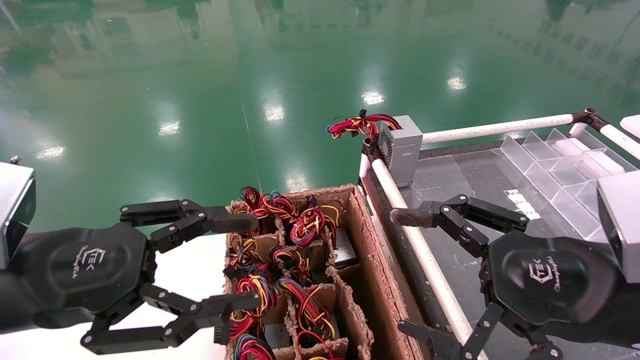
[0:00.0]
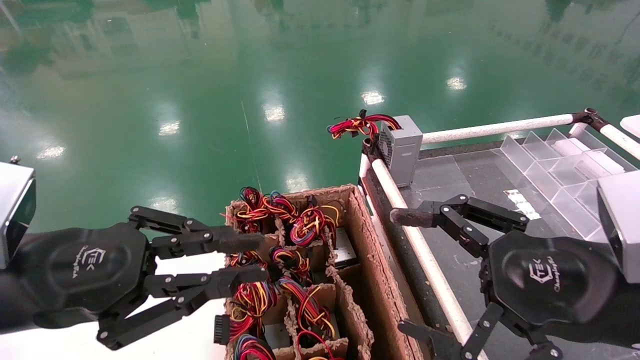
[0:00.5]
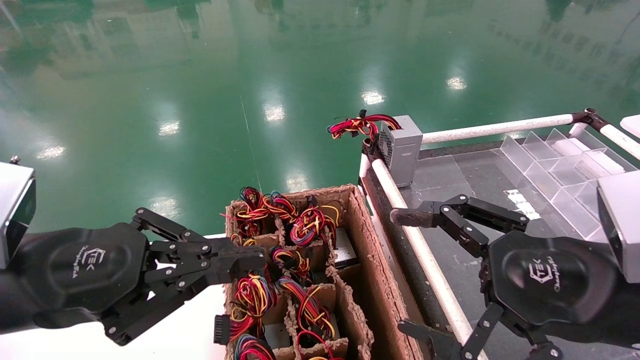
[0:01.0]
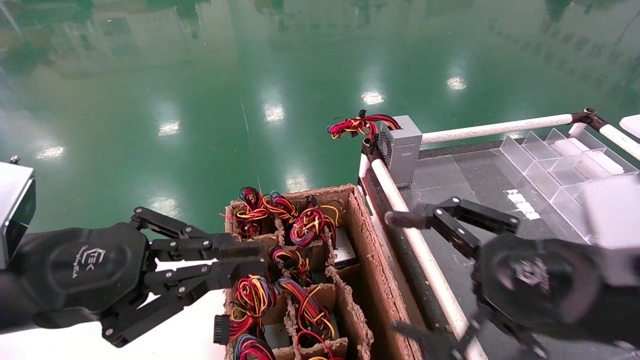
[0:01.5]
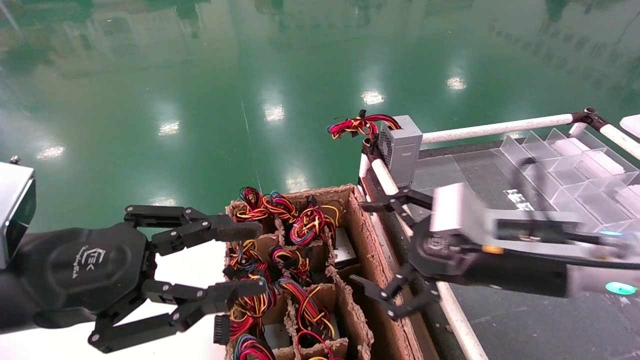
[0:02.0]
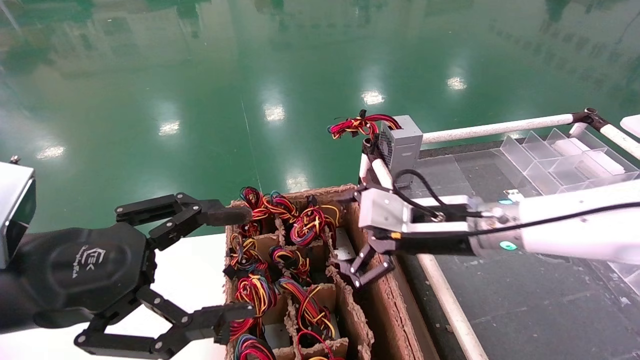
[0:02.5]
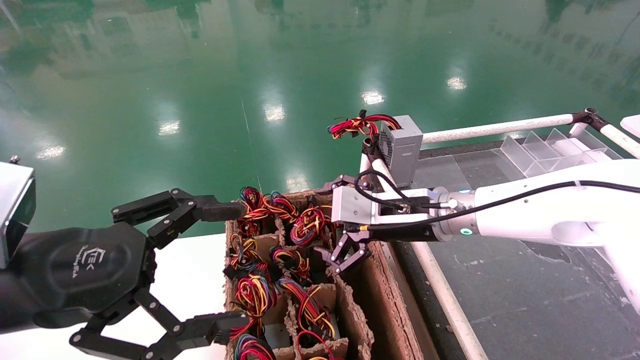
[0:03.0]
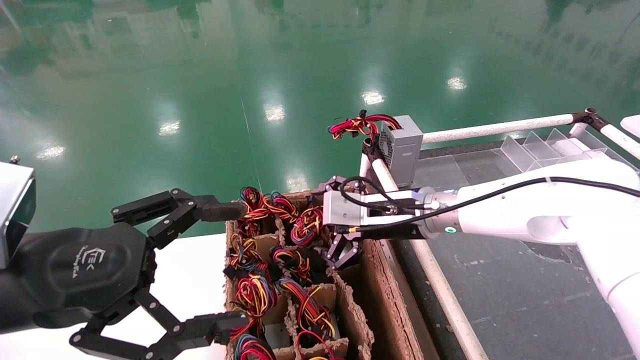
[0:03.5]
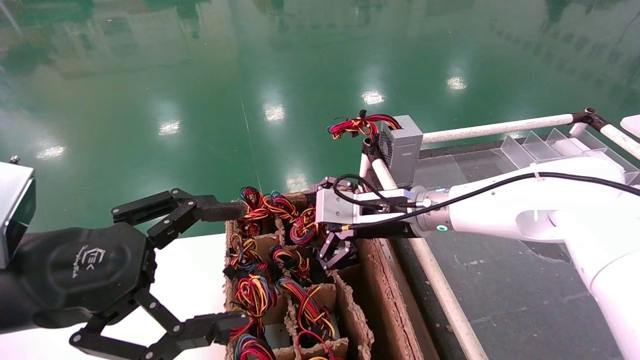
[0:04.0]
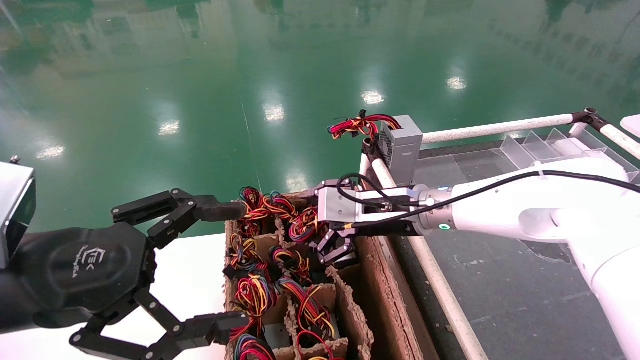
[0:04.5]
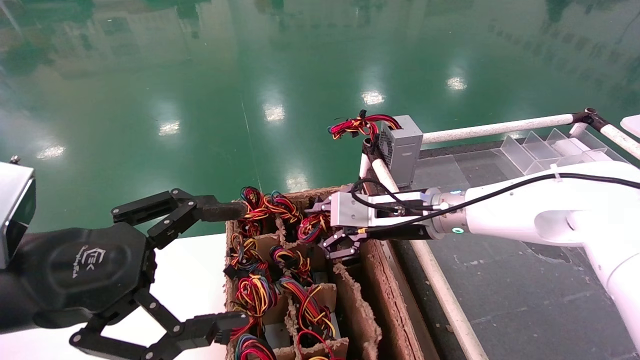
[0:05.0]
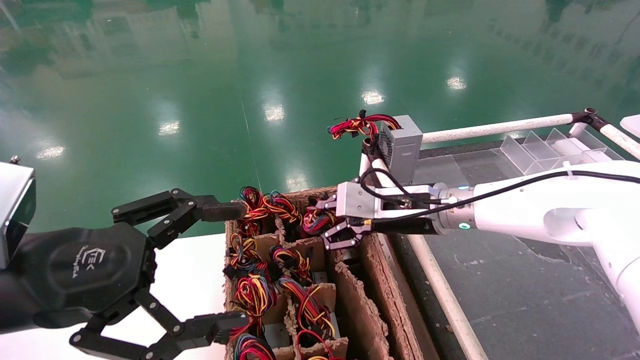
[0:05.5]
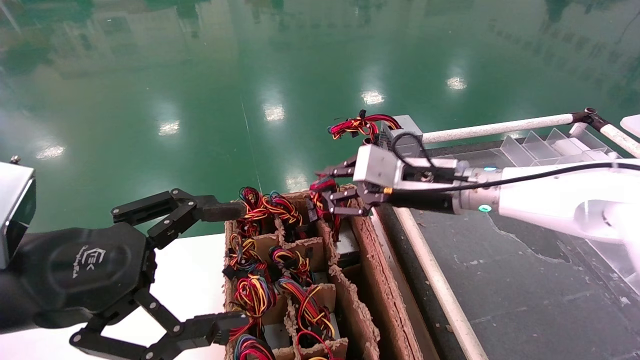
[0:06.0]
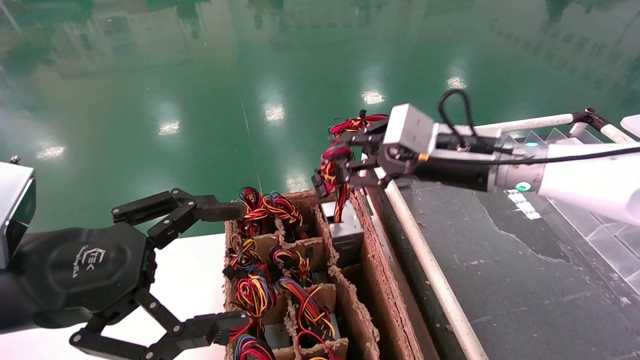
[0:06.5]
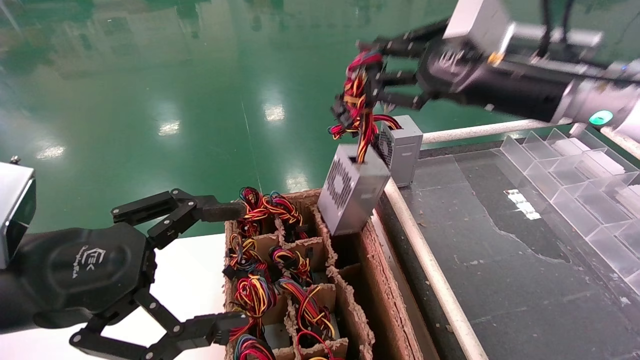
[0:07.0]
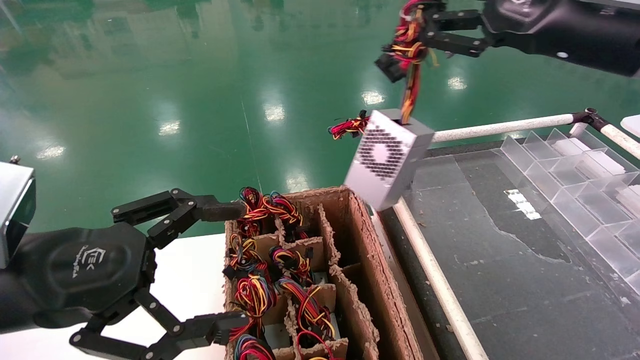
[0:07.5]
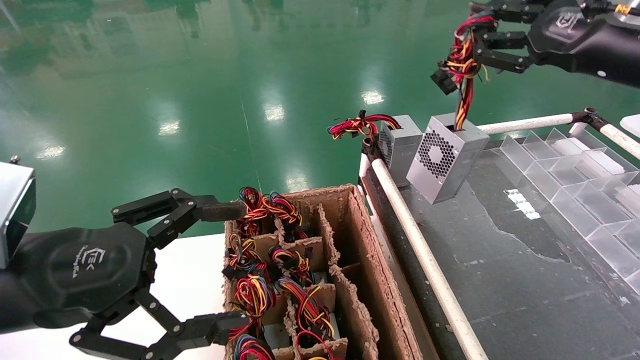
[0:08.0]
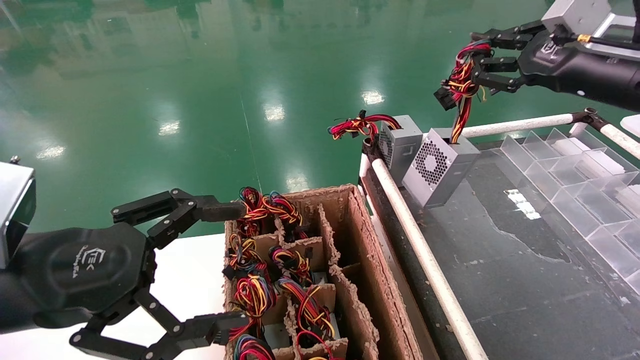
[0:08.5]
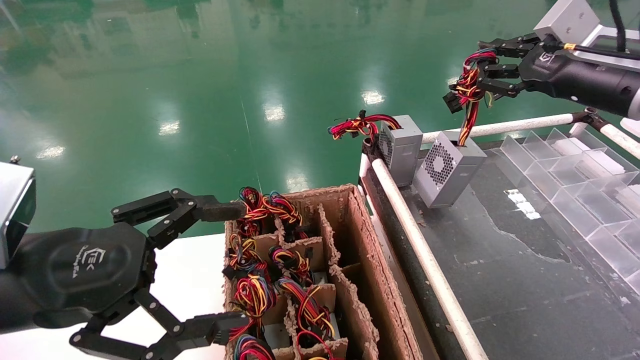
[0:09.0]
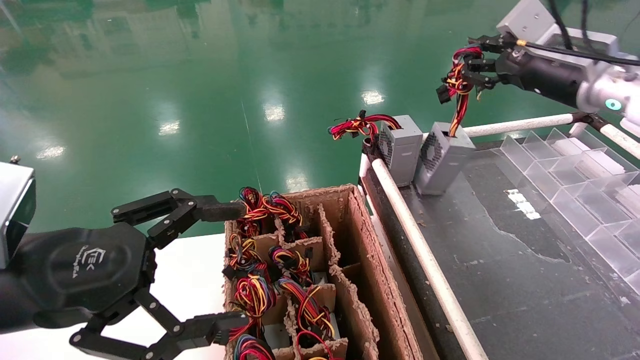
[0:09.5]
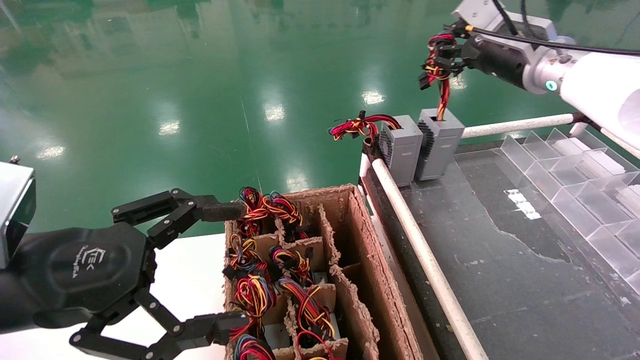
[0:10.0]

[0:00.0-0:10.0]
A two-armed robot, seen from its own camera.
Step, 0:01.0 to 0:05.5: Grab and lift the power supply from the large box.
0:00.0 to 0:02.0: The right gripper is displaced forward by approximately 10 cm.
0:02.0 to 0:04.0: The right gripper moves forward and to the left, roughly 15 cm; the left gripper opens up.
0:04.0 to 0:06.0: The right gripper moves approximately 5 cm, and closes.
0:06.0 to 0:08.0: The right gripper is displaced to the right and upward by roughly 25 cm.
0:08.0 to 0:10.0: The right gripper heads forward and to the left, covering some 15 cm.

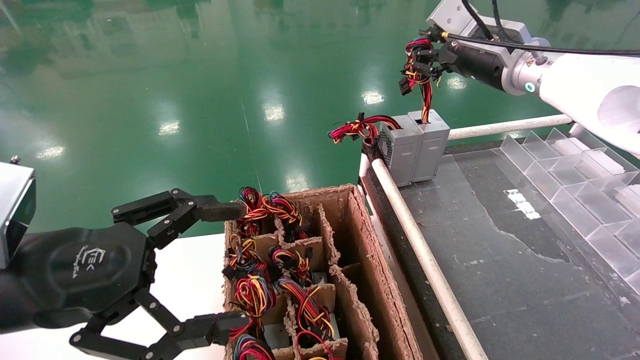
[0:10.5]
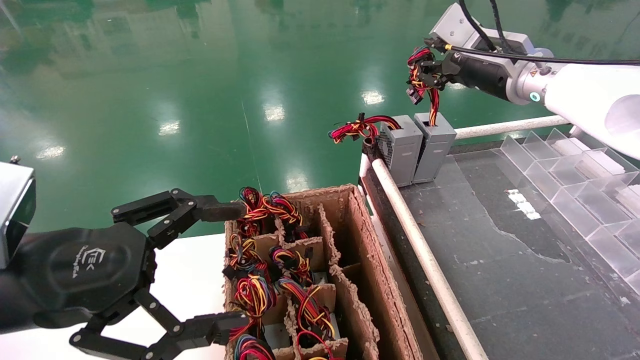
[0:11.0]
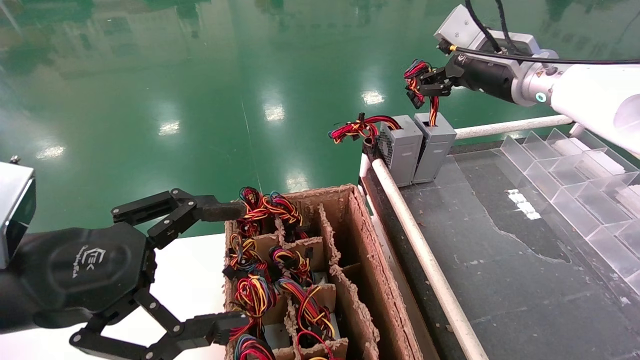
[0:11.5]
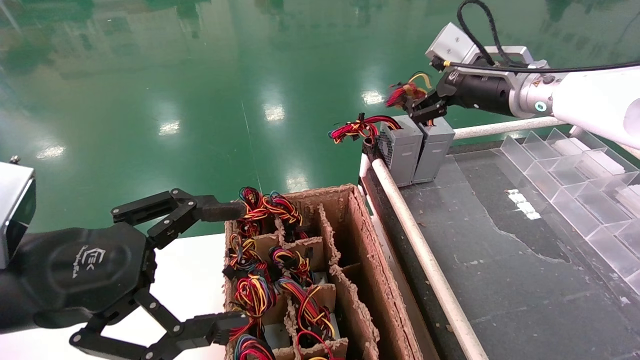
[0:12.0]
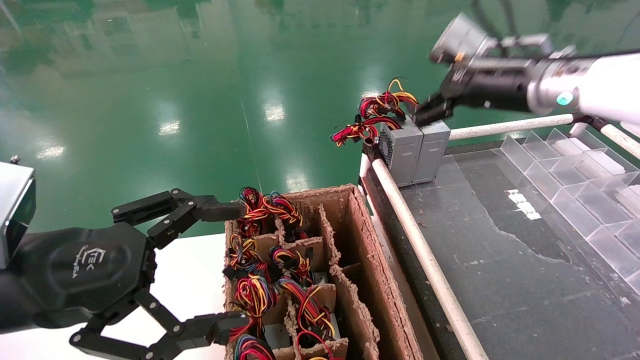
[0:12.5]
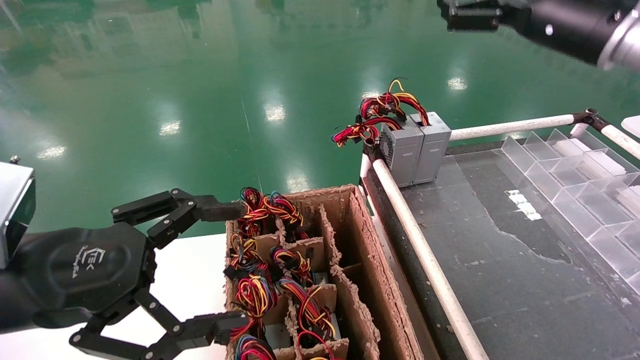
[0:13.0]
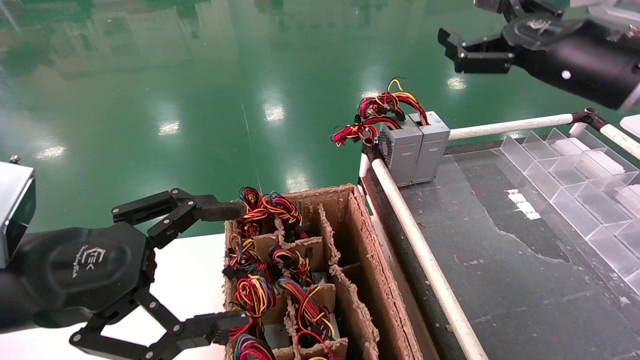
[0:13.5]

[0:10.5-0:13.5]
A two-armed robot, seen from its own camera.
0:10.5 to 0:12.0: The right gripper opens its fingers.
0:12.0 to 0:13.5: The right gripper goes approximately 10 cm backward and to the right.

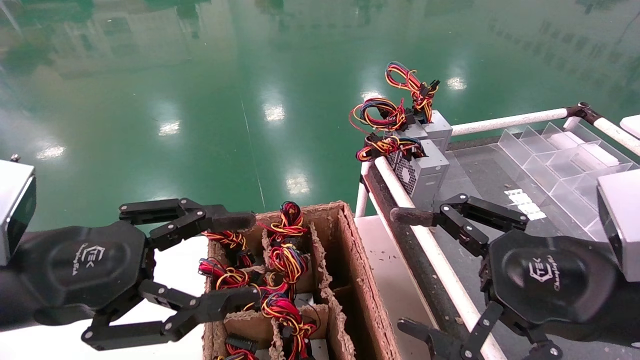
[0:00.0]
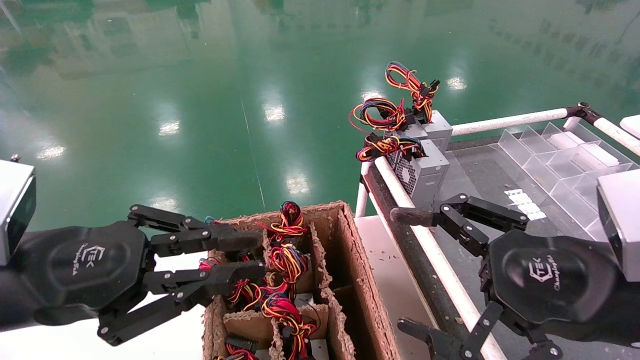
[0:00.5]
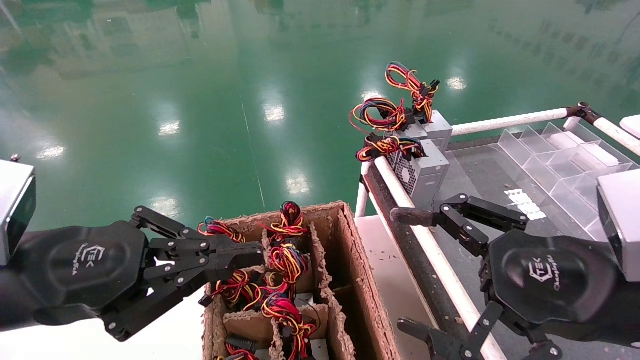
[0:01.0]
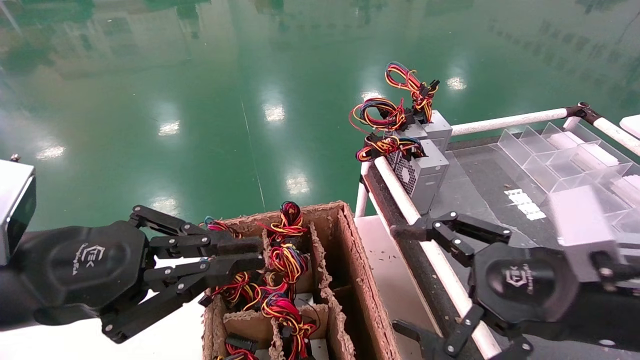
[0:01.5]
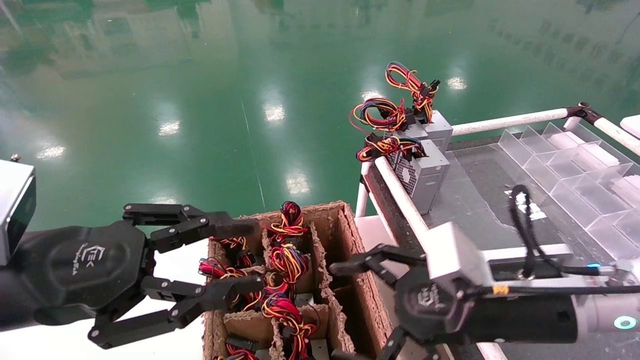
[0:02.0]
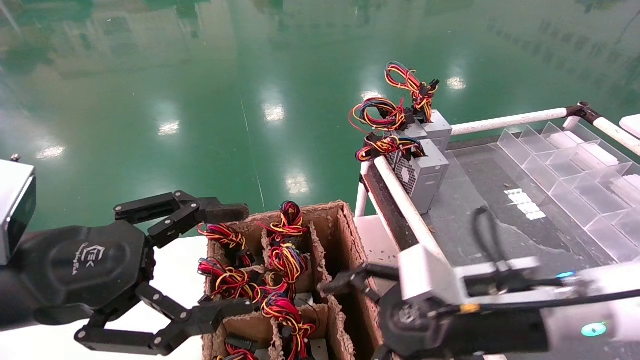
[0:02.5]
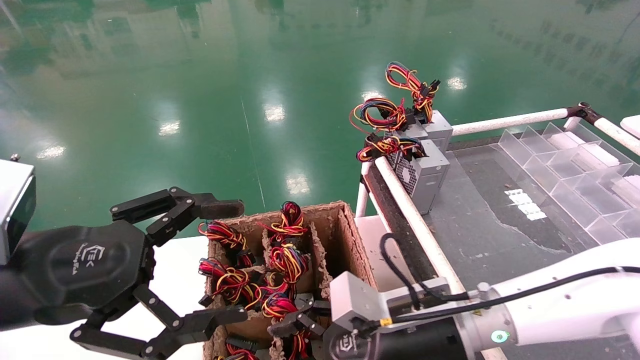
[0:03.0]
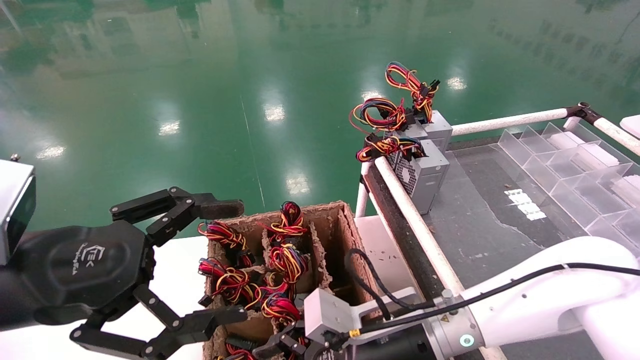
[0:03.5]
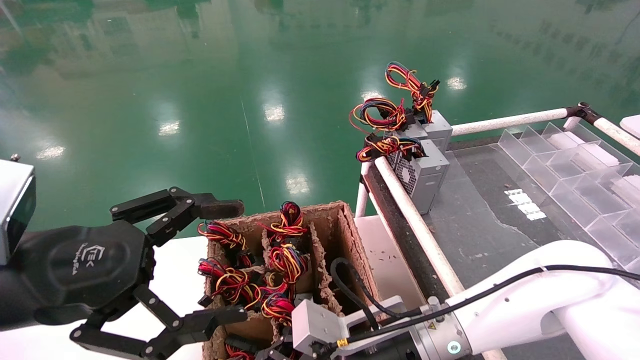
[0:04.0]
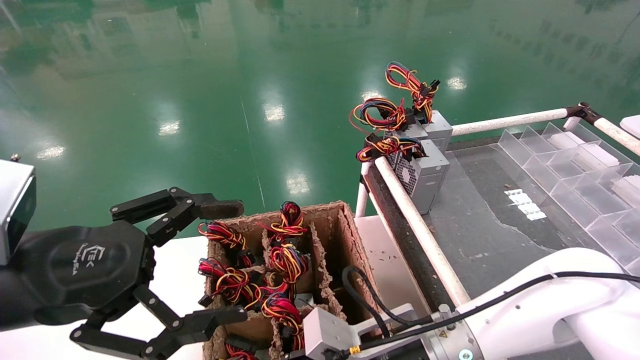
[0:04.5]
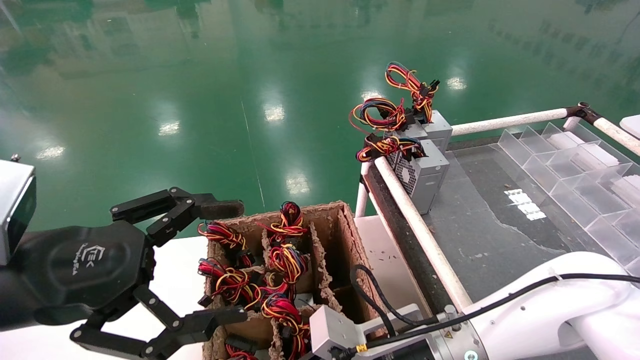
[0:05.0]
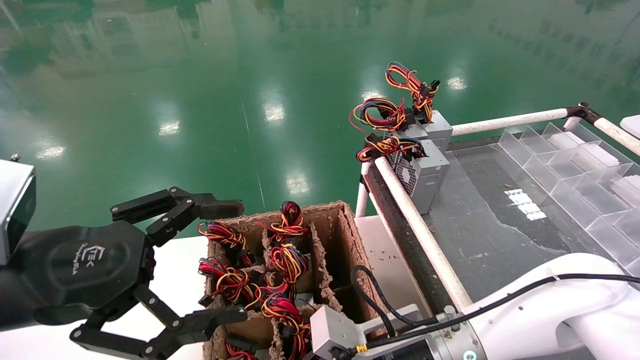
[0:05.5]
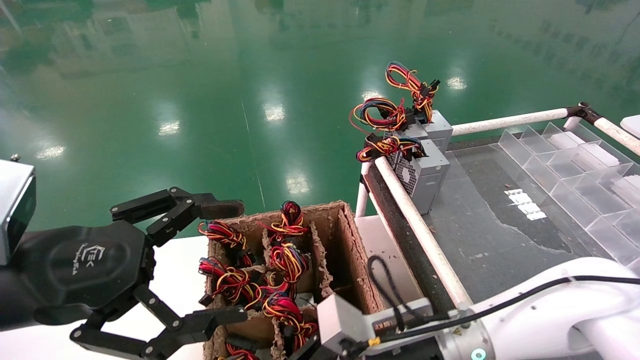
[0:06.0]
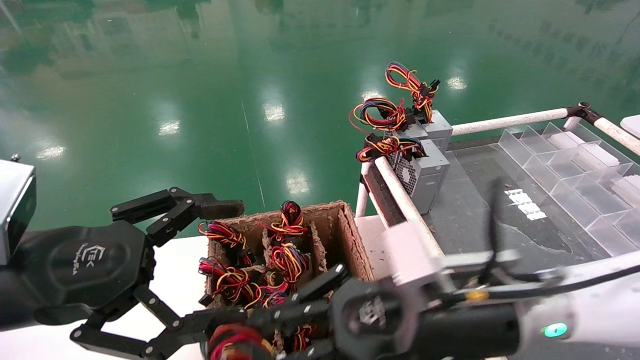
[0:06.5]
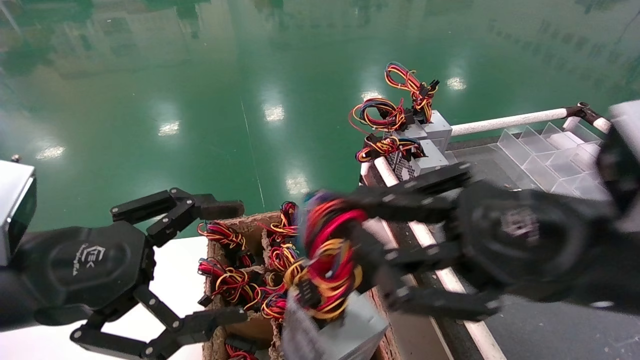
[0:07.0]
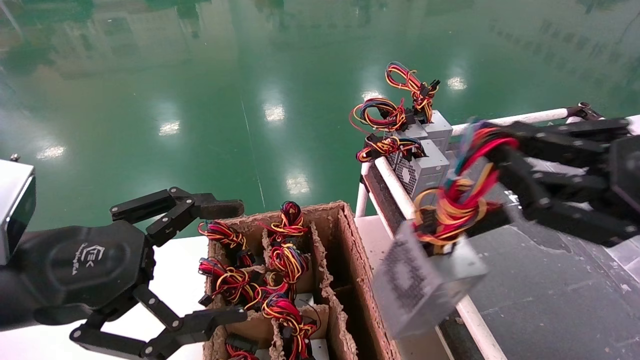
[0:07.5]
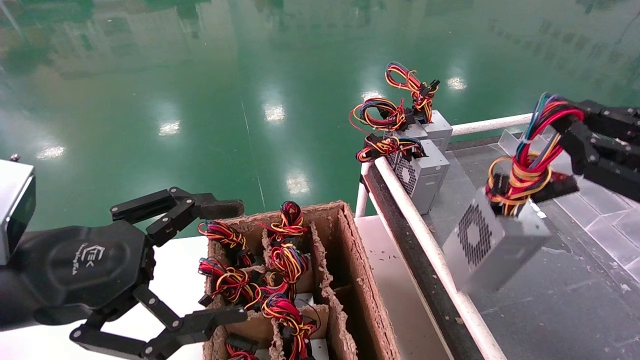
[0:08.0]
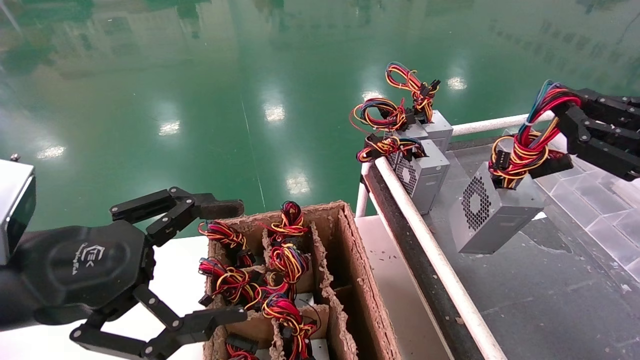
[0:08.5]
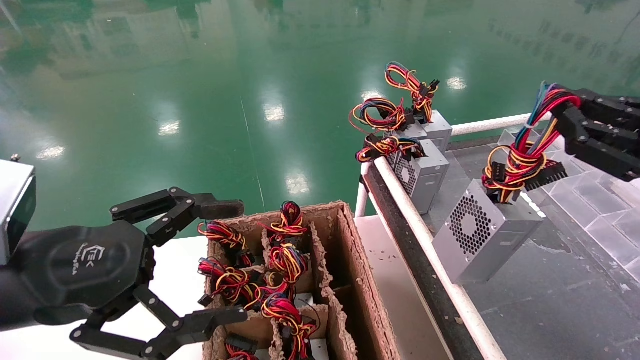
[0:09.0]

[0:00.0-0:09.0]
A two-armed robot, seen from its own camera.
Step, 0:01.5 to 0:05.5: Grab and lift the power supply from the large box.
0:00.0 to 0:02.0: The right gripper goes roughly 5 cm forward.
0:02.0 to 0:04.5: The left gripper opens; the right gripper shifts approximately 15 cm to the left and downward.
0:04.5 to 0:07.0: The right gripper heads upward, to the right and backward, covering approximately 25 cm, and closes its fingers.
0:07.0 to 0:09.0: The right gripper goes about 20 cm to the right.
